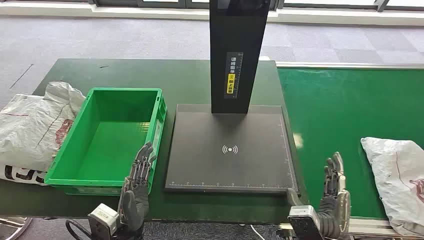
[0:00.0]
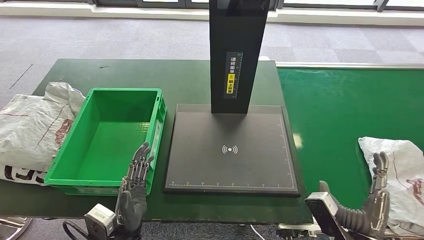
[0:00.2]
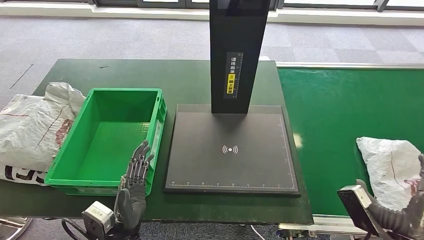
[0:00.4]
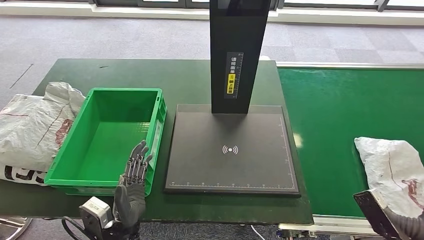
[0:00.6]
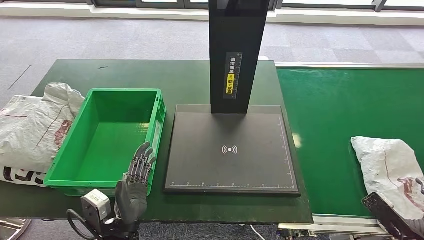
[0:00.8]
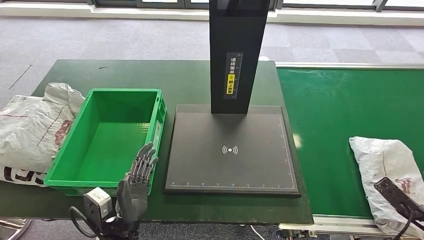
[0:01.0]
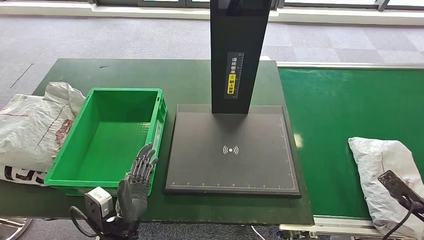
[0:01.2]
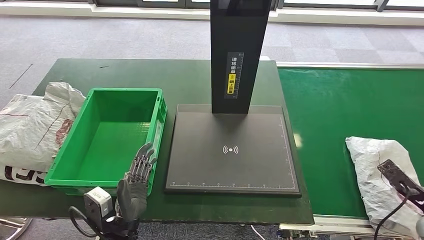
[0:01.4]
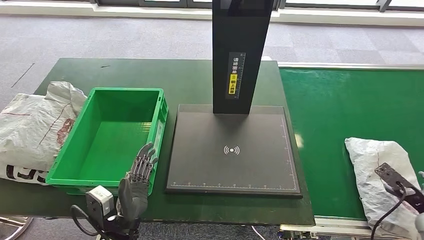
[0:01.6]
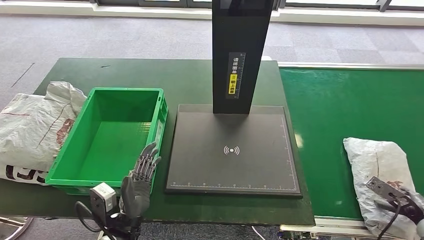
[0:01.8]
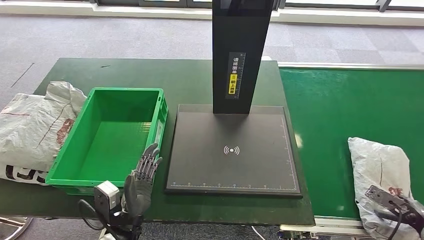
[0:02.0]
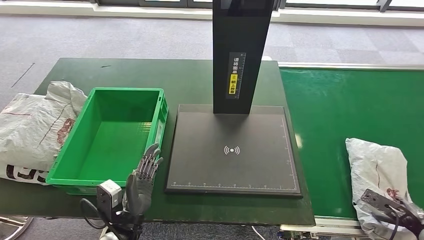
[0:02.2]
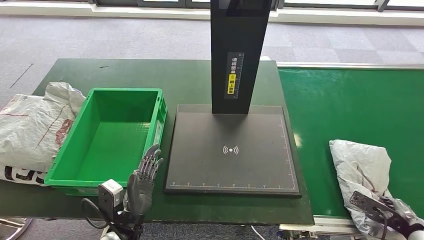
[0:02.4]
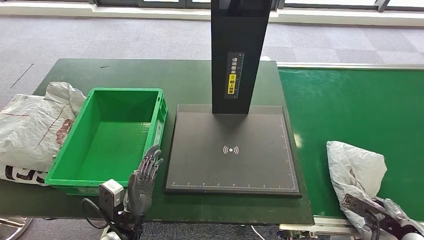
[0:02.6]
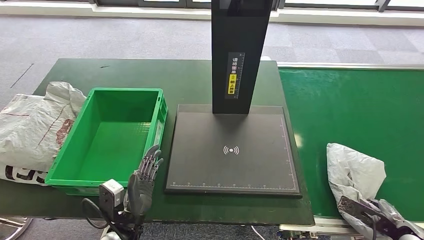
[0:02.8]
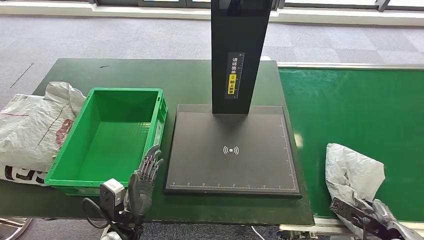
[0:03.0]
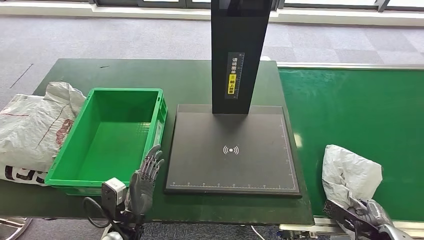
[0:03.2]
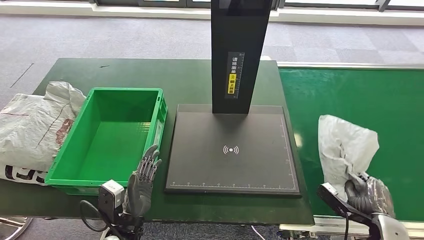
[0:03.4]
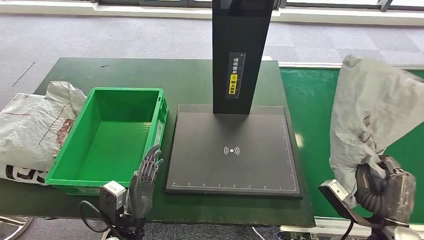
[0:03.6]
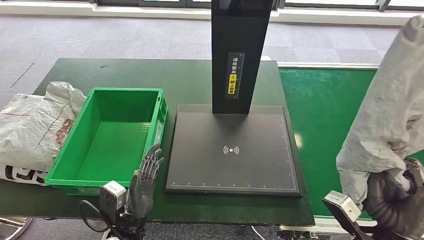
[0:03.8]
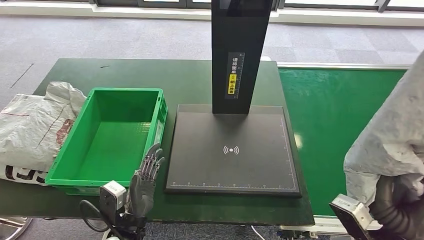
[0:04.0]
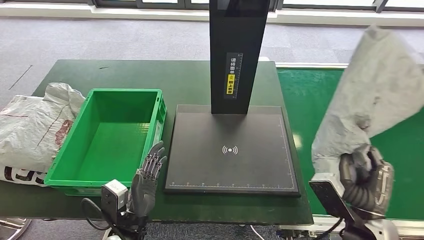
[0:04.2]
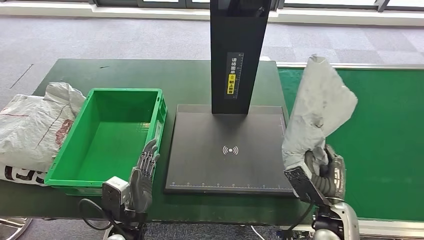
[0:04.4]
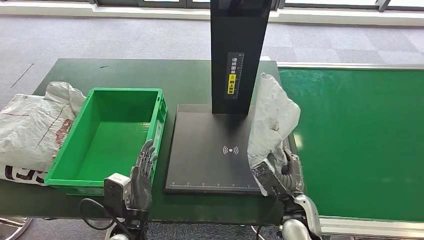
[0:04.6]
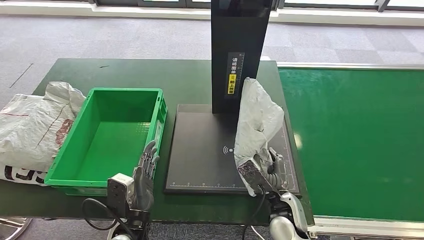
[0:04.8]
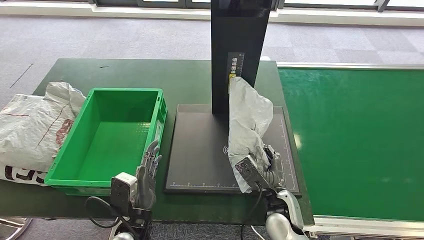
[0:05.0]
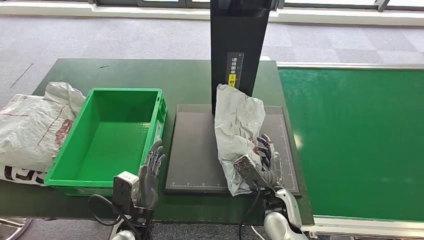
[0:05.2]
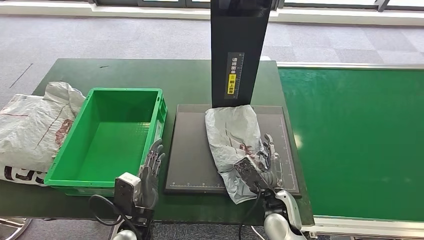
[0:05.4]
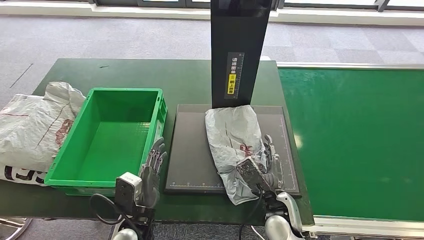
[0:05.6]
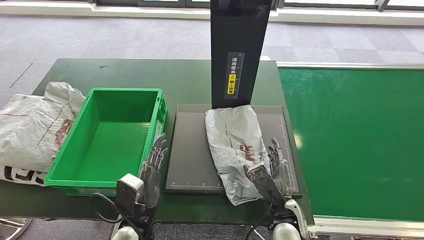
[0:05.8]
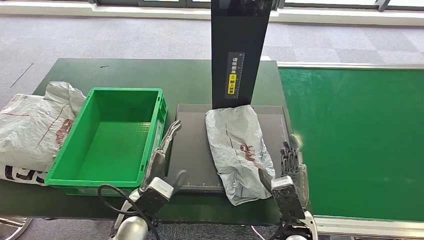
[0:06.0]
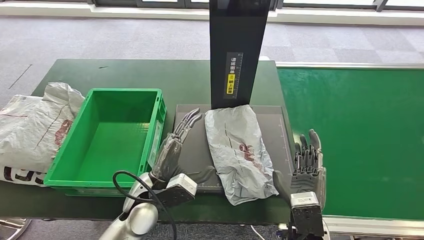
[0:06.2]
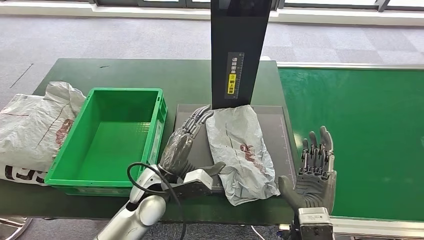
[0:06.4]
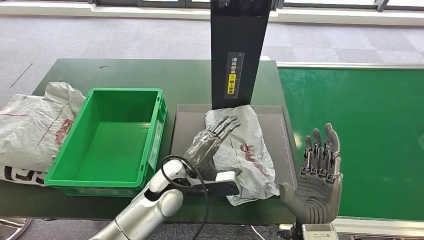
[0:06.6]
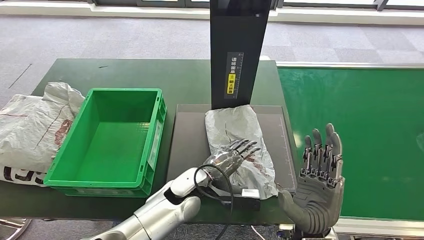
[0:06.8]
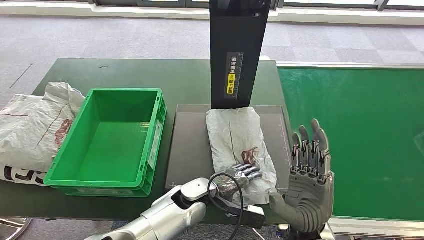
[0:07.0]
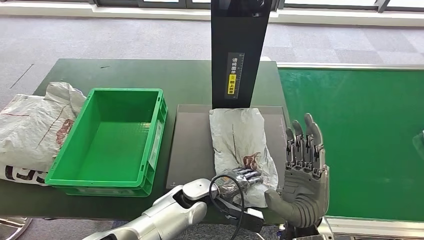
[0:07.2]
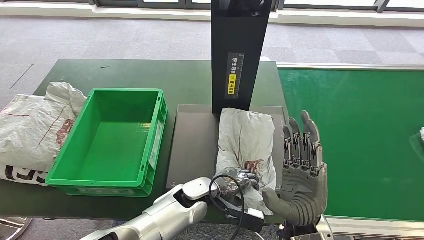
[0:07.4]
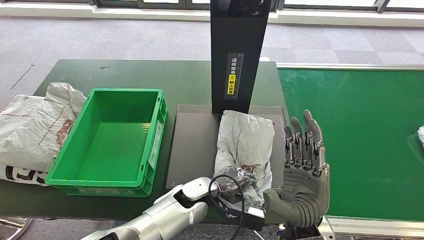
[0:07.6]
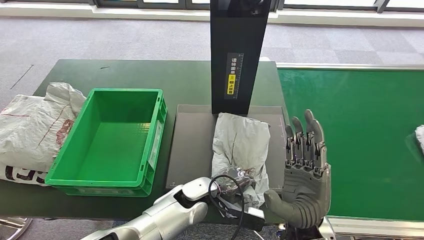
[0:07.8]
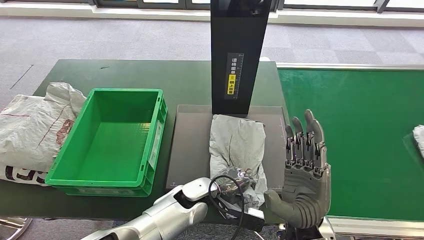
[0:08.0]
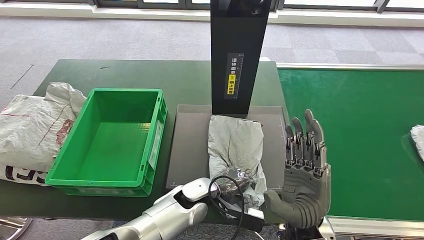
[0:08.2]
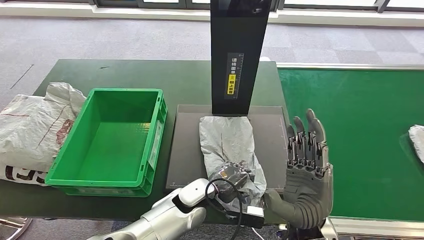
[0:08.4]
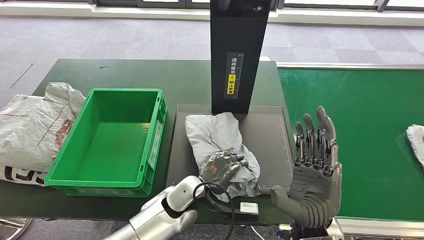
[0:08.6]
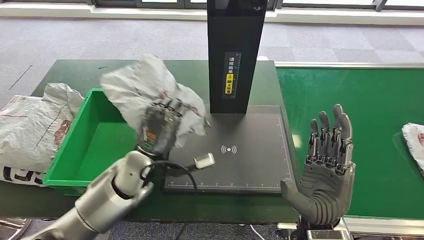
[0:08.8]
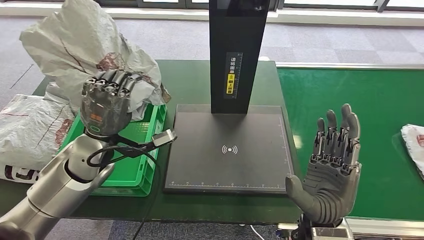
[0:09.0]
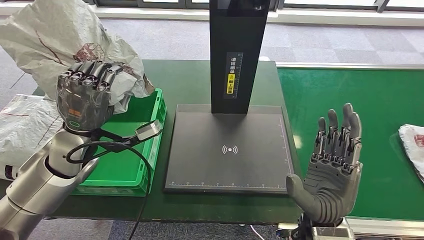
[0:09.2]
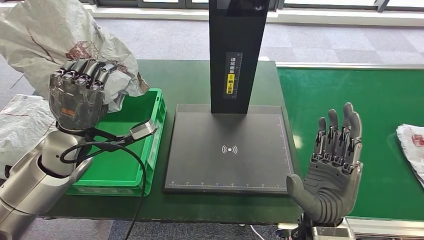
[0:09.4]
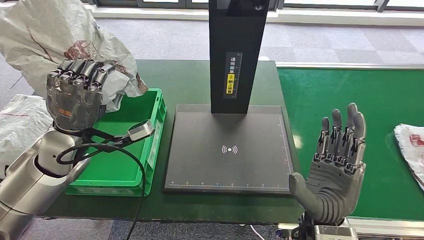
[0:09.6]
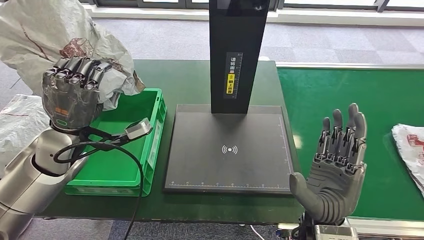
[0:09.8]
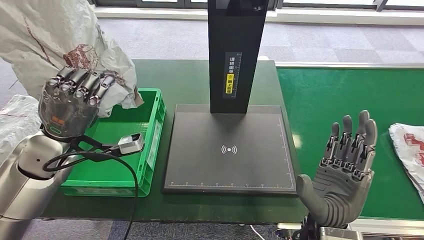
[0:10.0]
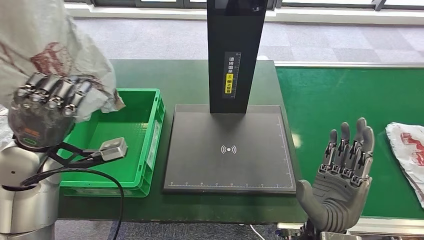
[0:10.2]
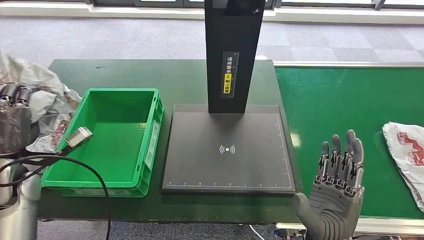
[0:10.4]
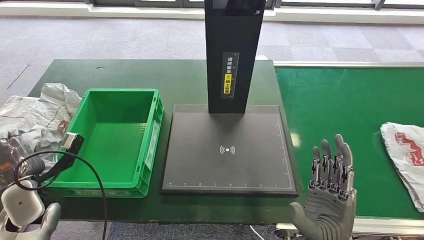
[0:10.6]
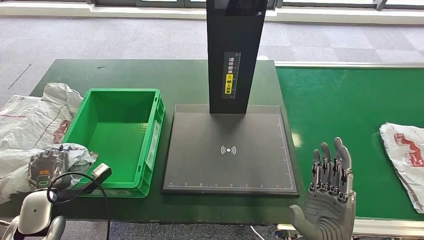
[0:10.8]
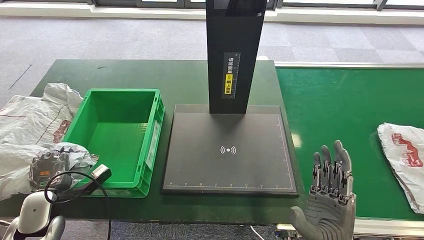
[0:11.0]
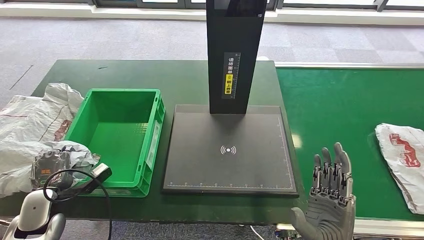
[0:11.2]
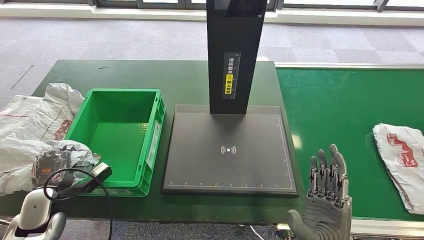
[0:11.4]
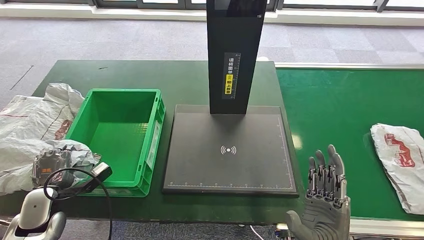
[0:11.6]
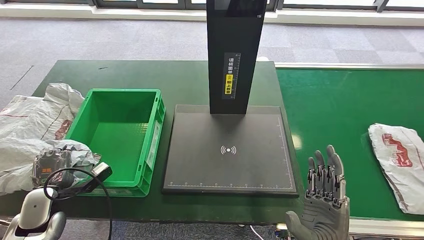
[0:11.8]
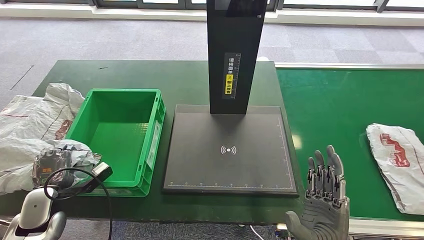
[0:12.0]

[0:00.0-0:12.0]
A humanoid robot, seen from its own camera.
Step, 0:00.0 to 0:04.4: Take the parcel off the conveyor belt.
Step, 0:04.8 to 0:07.4: Place the parcel onto the inbound machine.
0:01.6 to 0:03.0: The right hand shifts approximately 10 cm to the left and backward.
0:03.0 to 0:04.4: The right hand heads to the left, covering some 25 cm.
0:04.4 to 0:06.0: The left hand moves roughly 5 cm. Meanwhile the right hand is displaced to the left by some 10 cm.
0:06.0 to 0:07.6: The left hand travels to the right and forward by approximately 15 cm. The right hand travels upward by approximately 10 cm.

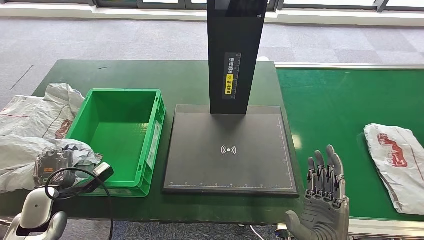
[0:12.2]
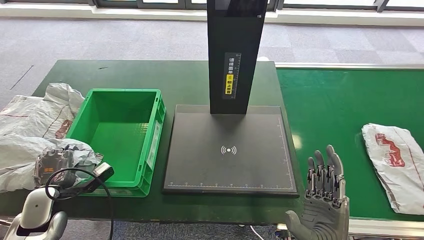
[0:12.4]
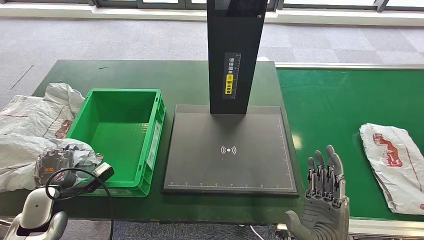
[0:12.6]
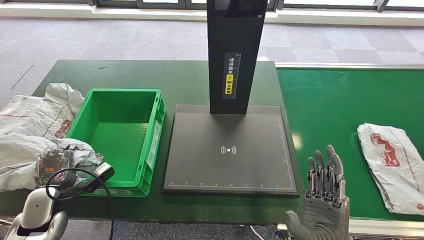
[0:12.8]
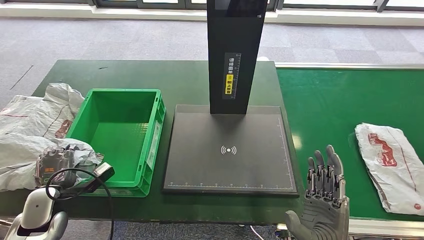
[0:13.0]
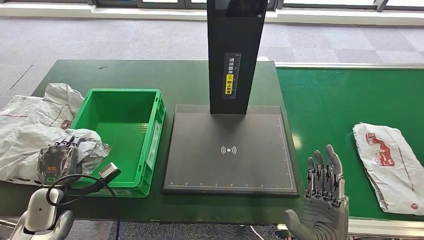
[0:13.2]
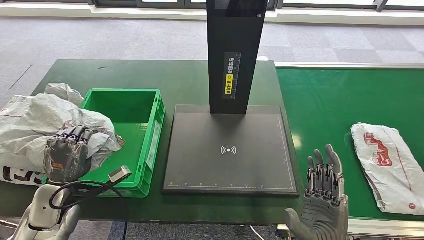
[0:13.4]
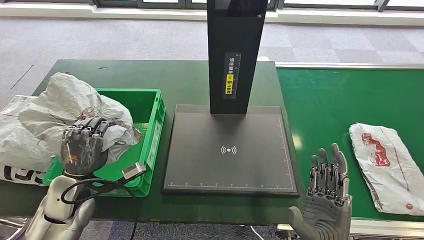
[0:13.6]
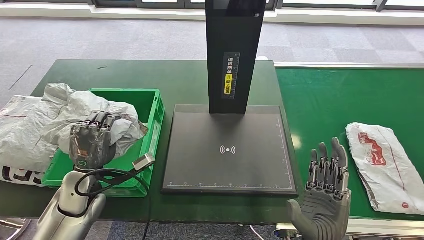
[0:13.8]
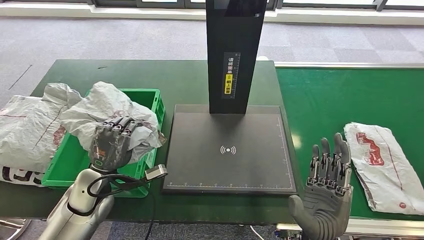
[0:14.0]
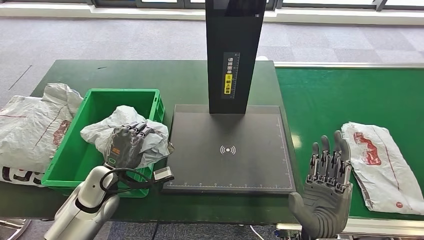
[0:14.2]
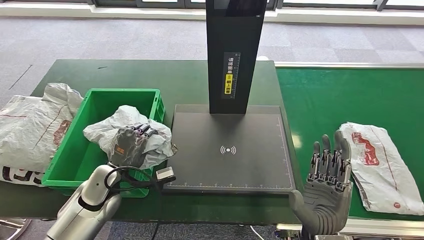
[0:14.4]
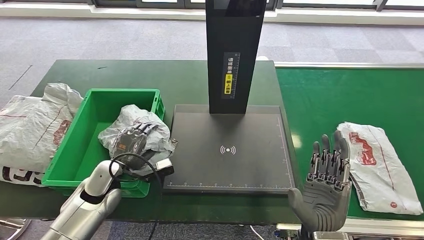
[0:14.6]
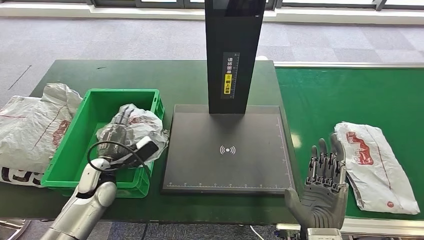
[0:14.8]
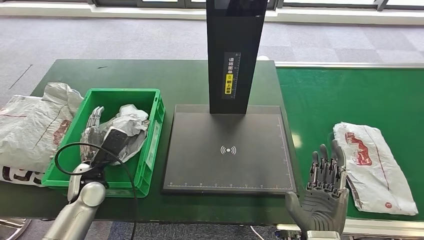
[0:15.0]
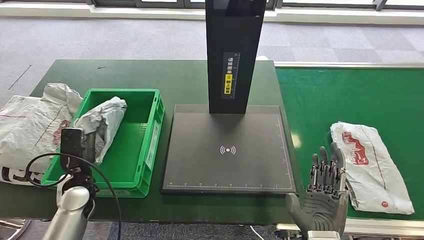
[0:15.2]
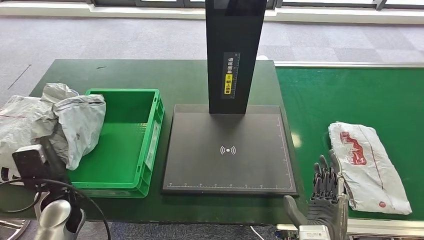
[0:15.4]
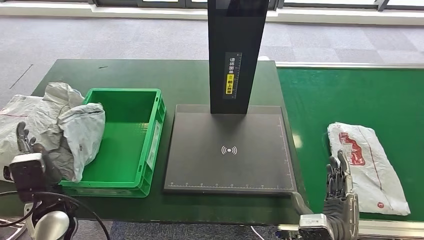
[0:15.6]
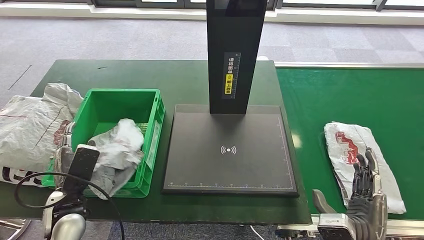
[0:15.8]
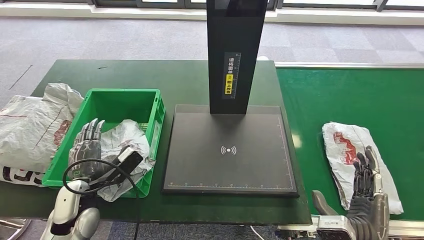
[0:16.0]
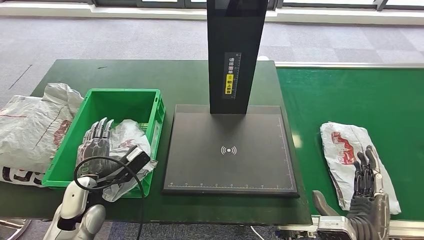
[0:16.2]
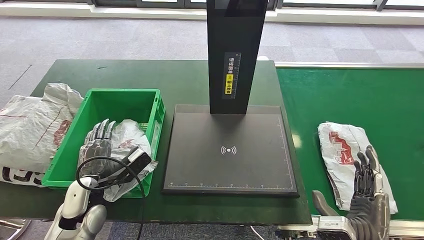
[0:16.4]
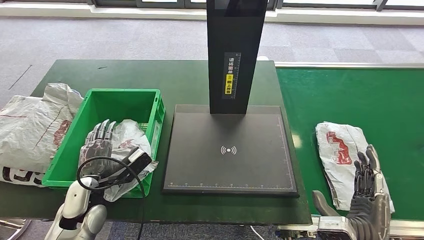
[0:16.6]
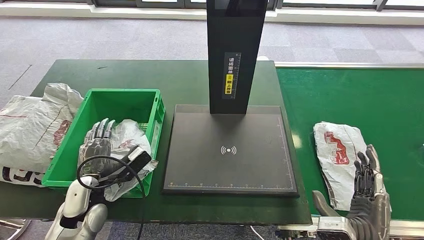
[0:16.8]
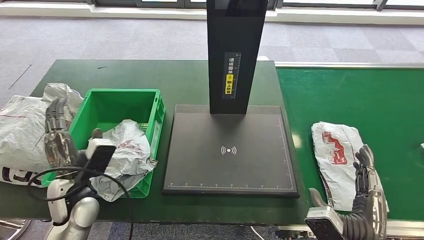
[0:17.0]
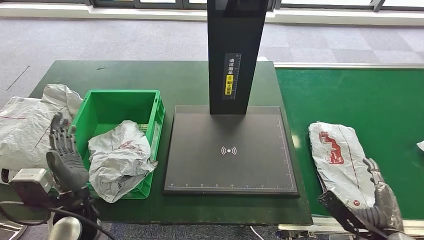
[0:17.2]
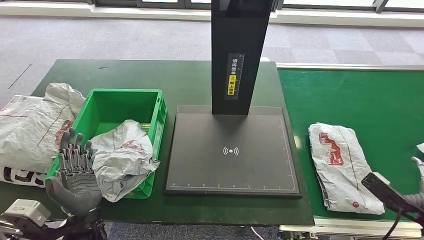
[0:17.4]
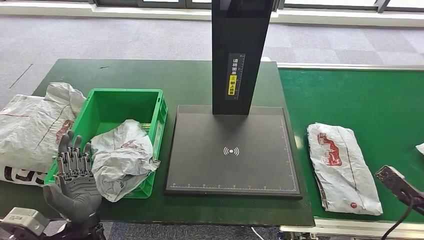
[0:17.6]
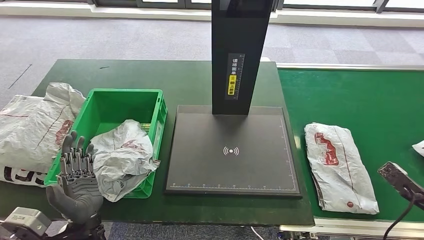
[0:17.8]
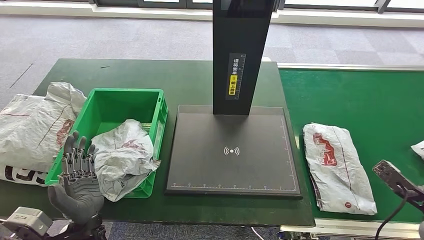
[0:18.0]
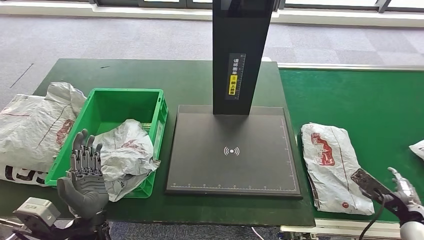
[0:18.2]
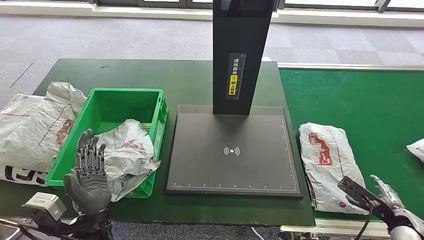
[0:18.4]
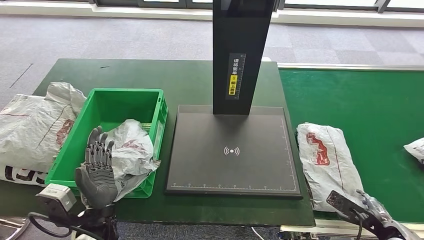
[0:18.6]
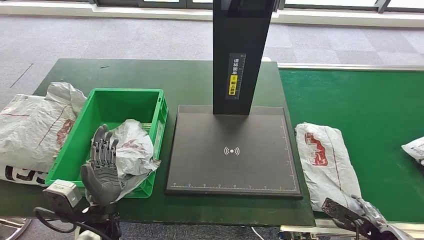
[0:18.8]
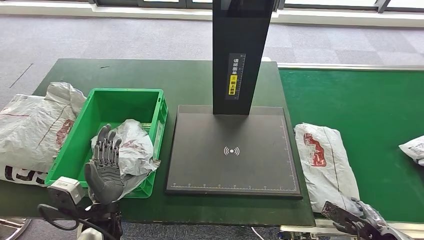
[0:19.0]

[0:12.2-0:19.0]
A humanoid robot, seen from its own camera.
Step, 0:13.8 to 0:17.2: Put the parcel inside the courier box.
0:12.2 to 0:13.6: The left hand travels to the right and upward by about 10 cm.
0:15.0 to 0:16.2: The right hand moves to the right, roughly 10 cm.
0:17.6 to 0:19.0: The right hand is displaced to the left and downward by approximately 10 cm.
